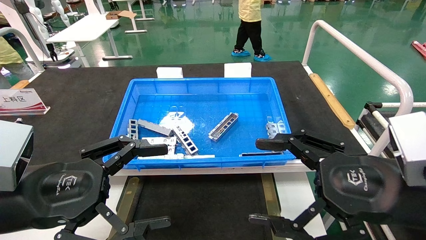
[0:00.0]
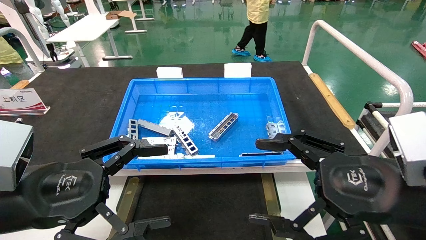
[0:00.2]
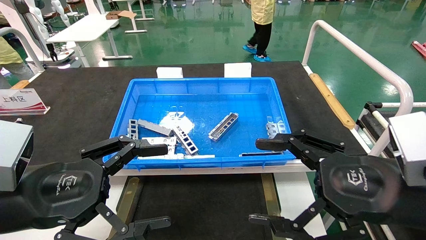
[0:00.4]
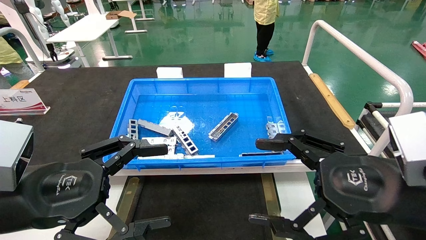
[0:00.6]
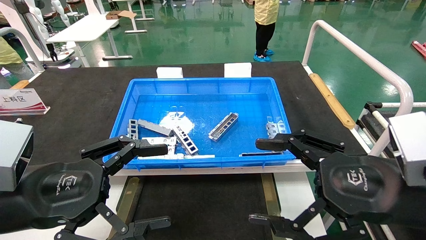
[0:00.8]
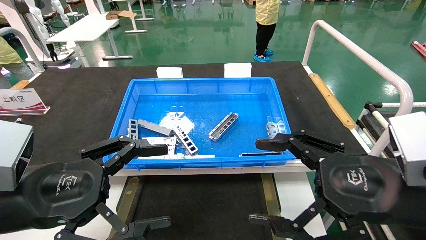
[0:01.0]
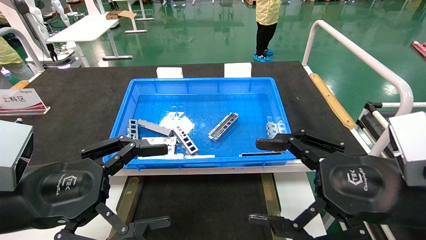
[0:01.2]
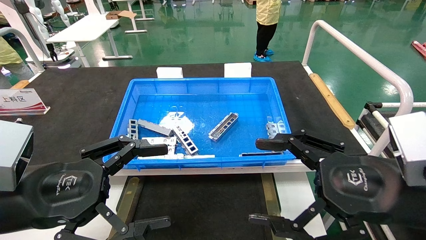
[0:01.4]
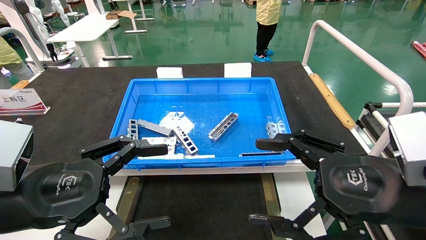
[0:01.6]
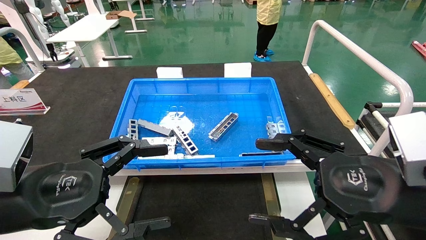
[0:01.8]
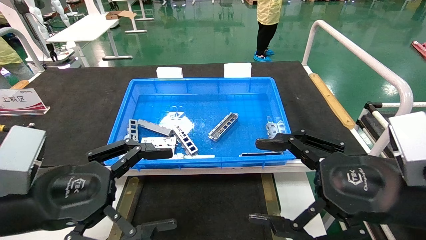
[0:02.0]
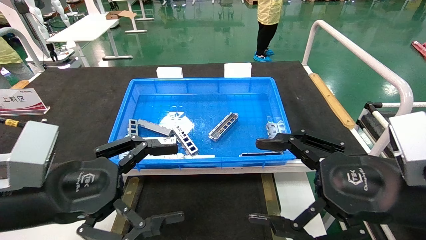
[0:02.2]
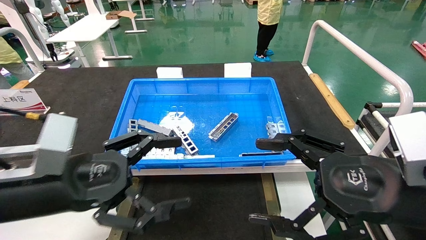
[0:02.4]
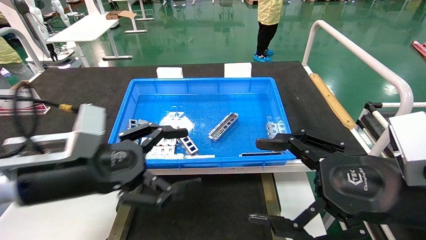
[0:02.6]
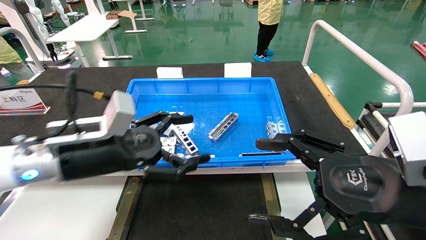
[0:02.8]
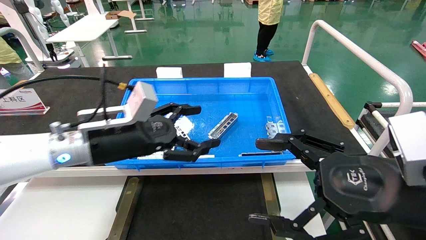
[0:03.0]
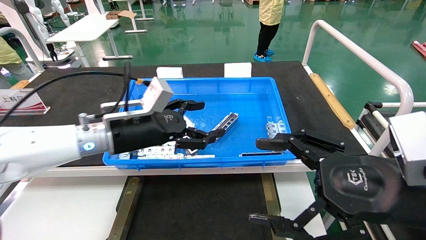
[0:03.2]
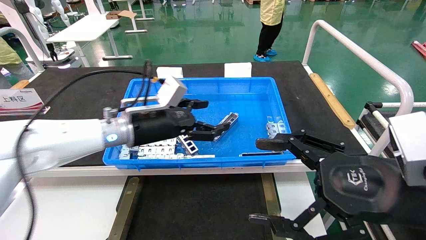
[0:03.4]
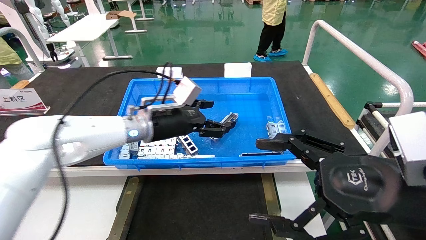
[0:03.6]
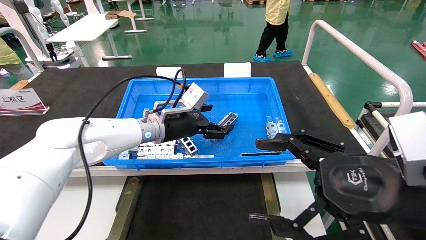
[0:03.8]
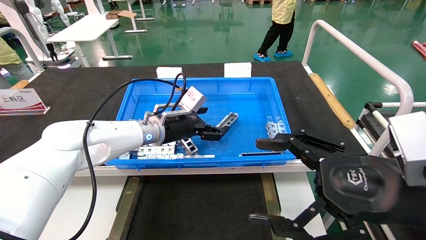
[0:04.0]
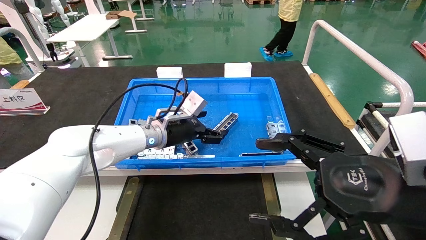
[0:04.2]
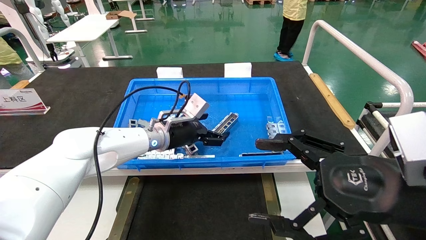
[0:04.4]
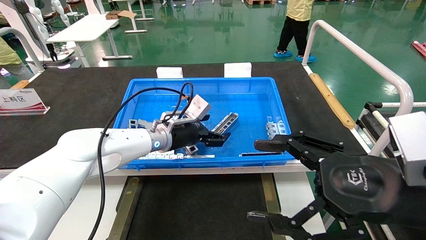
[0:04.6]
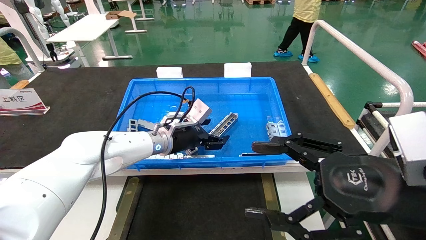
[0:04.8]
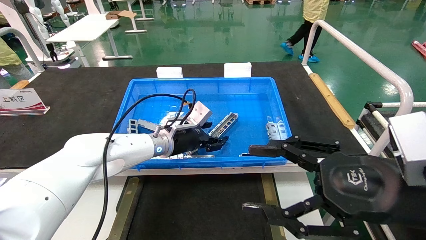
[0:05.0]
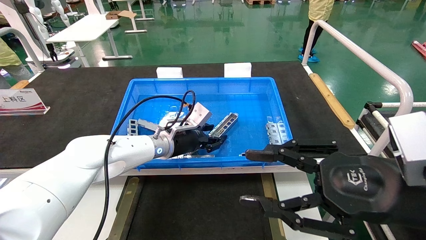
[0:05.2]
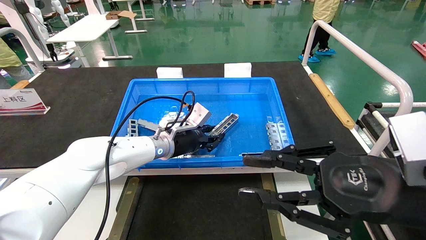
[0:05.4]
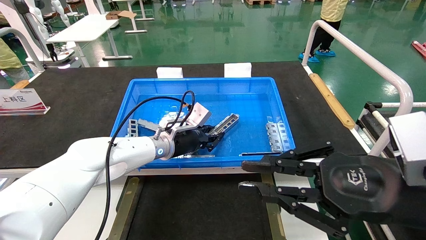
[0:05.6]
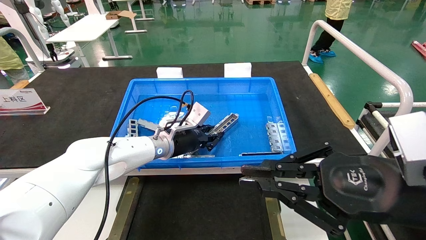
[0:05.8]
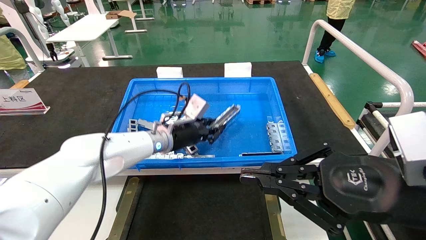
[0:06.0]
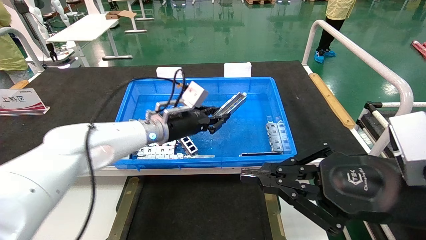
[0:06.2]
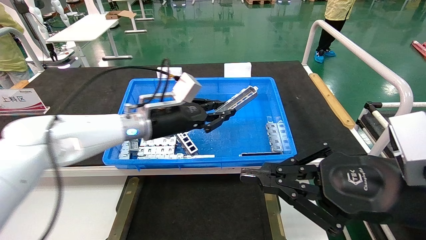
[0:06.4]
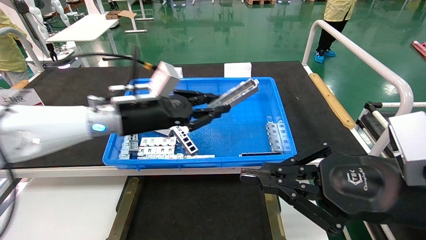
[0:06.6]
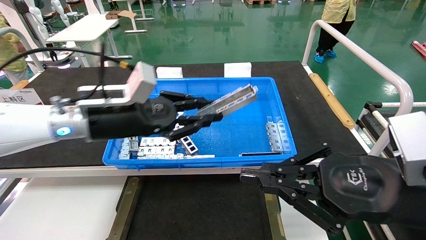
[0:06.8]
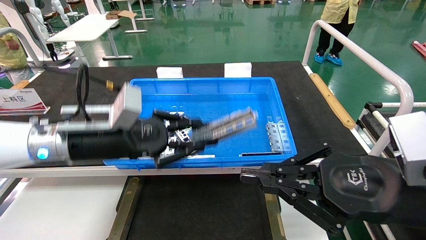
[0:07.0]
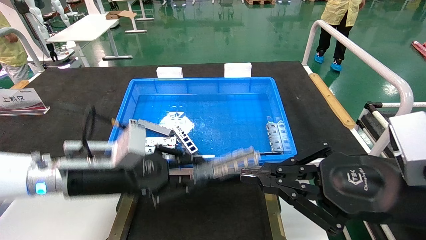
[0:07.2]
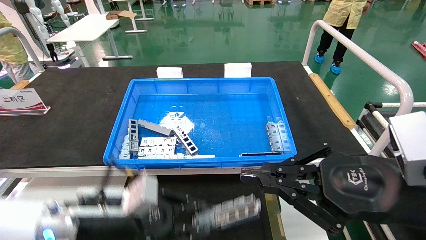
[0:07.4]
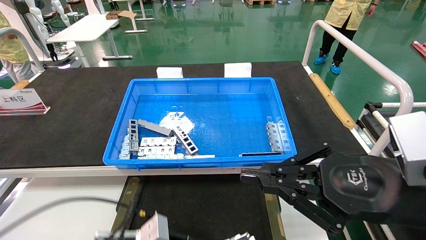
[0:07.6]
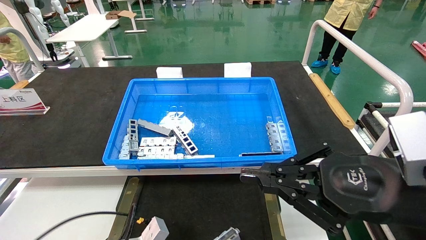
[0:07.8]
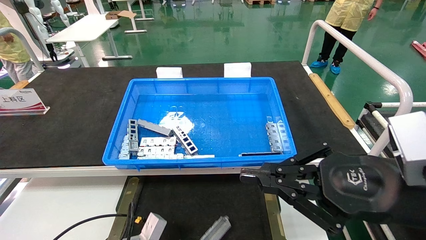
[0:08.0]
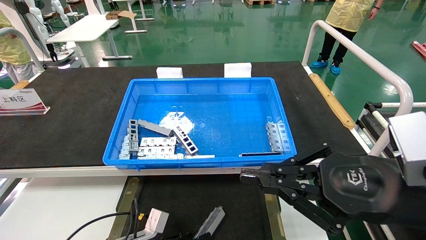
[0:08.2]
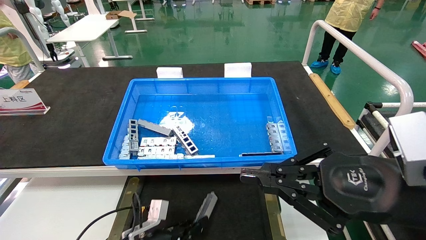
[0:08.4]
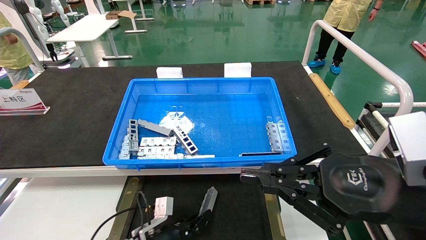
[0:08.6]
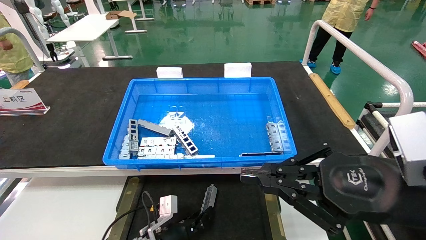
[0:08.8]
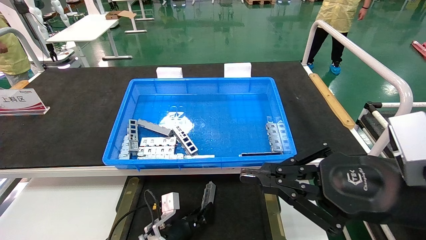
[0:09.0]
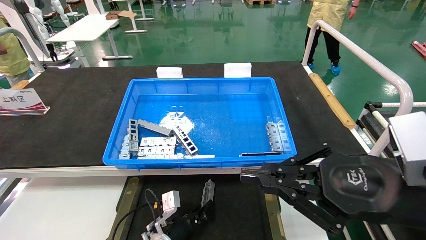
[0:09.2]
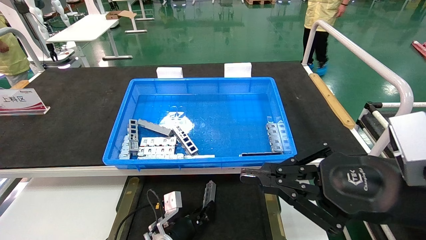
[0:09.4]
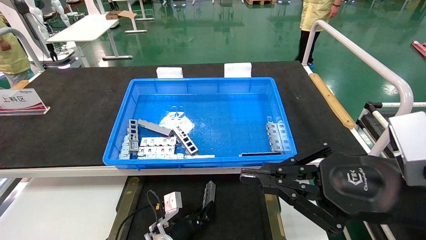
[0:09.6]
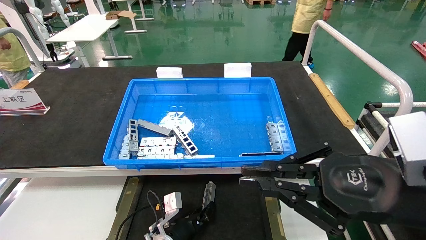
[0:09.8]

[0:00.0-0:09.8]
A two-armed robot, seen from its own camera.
Task of the whole recording: Grasp the part with one hand and place it on the black container.
Step, 0:02.2 to 0:05.4: Pick up the front USB bracket from the feeding area.
0:00.0 to 0:01.4: The two grippers keep their place.
0:01.4 to 0:02.8: The left gripper travels forward and to the right by roughly 10 cm.
0:02.8 to 0:04.2: The left gripper travels forward and to the right by roughly 20 cm.
0:04.2 to 0:05.6: The right gripper closes its fingers, while the left gripper closes its fingers.
0:05.6 to 0:07.0: The left gripper heads backward, to the left and upward, covering about 20 cm.
0:07.0 to 0:08.4: The left gripper heads downward, covering some 30 cm.
0:08.4 to 0:09.8: The left gripper moves to the right, some 5 cm.

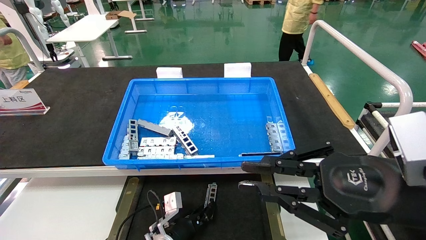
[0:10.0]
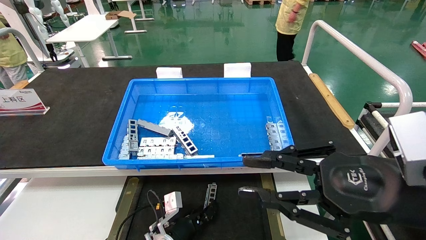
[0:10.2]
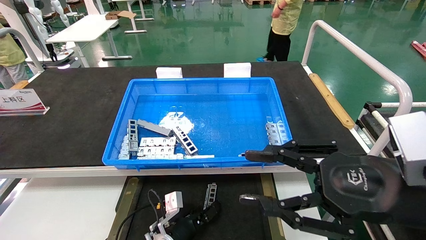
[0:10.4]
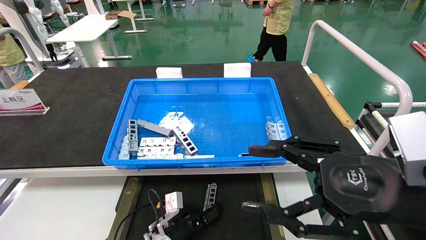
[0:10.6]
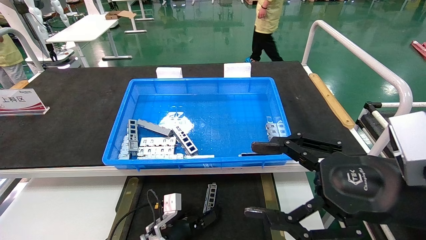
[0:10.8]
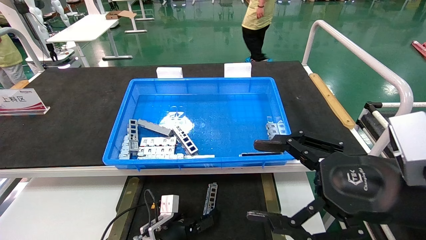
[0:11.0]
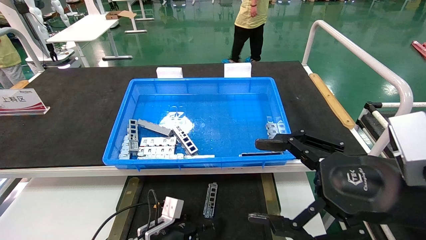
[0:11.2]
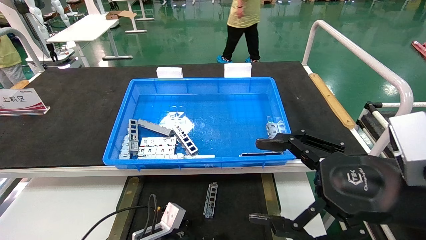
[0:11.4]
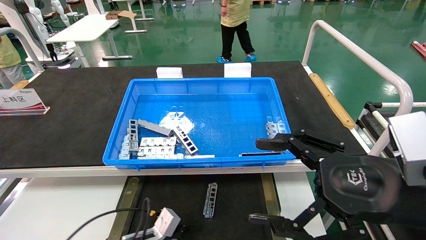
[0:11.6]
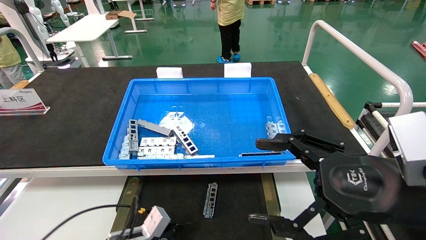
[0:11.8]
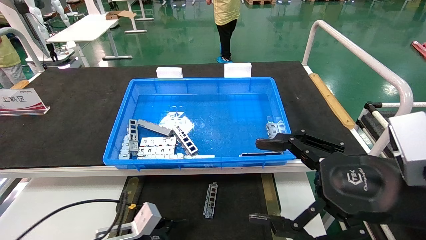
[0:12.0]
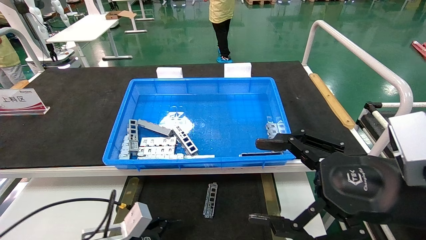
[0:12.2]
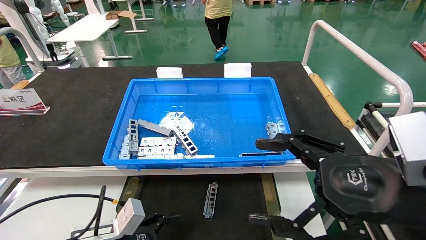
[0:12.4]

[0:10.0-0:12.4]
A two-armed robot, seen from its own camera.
Task of the whole recording: Grasp the part with one hand and place it on the black container.
0:10.0 to 0:11.2: The right gripper opens its fingers. Meanwhile the left gripper changes place by approximately 5 cm, and opens its fingers.
0:11.2 to 0:12.4: The left gripper shifts some 15 cm upward, to the left and backward.

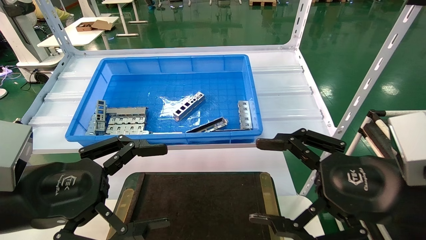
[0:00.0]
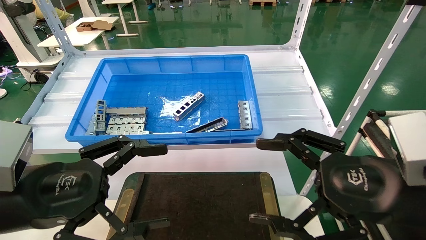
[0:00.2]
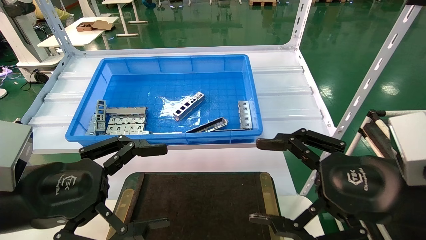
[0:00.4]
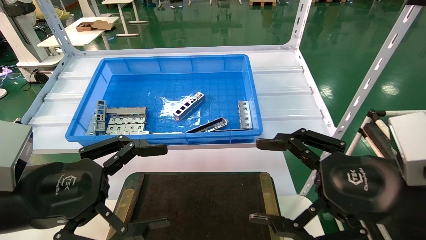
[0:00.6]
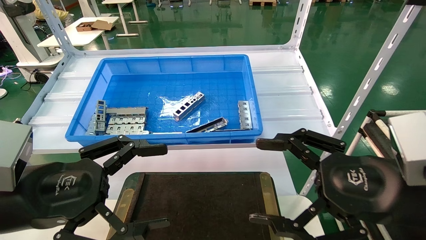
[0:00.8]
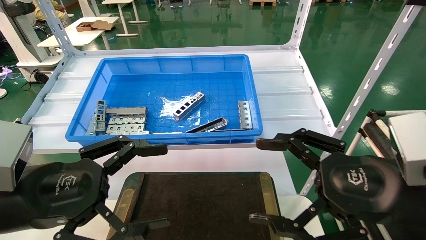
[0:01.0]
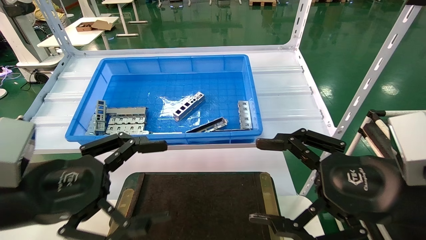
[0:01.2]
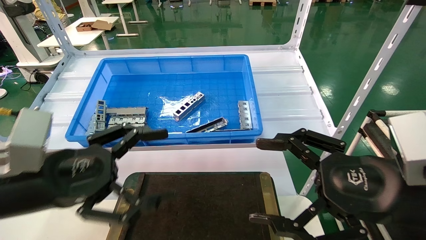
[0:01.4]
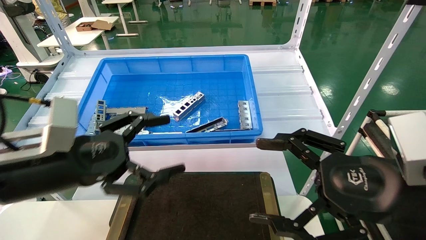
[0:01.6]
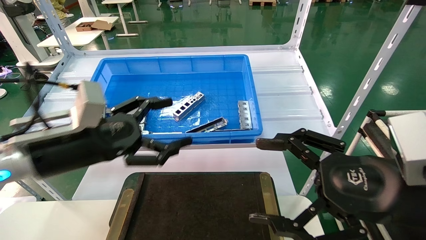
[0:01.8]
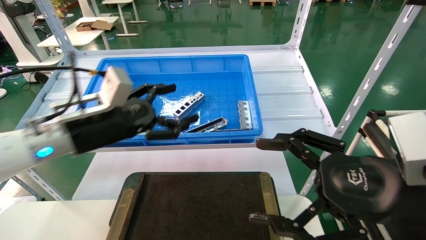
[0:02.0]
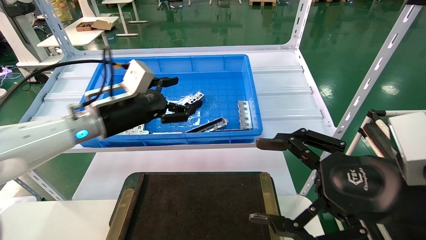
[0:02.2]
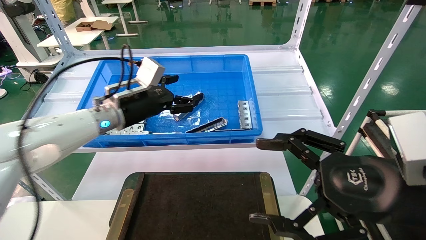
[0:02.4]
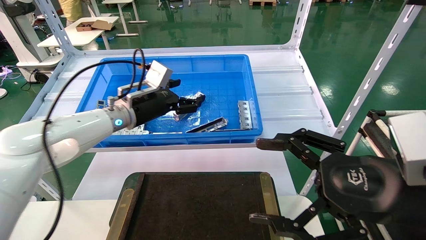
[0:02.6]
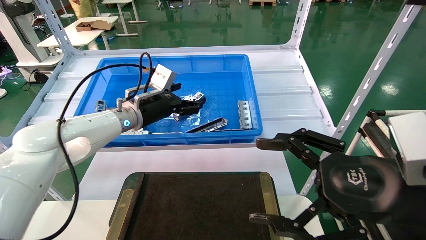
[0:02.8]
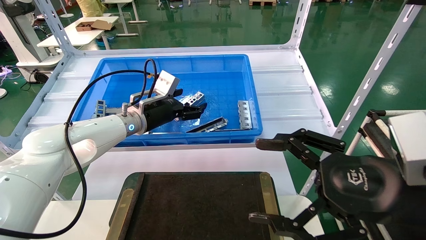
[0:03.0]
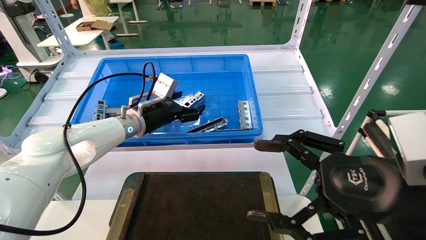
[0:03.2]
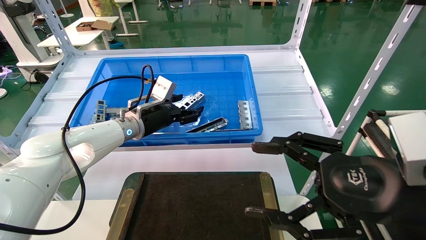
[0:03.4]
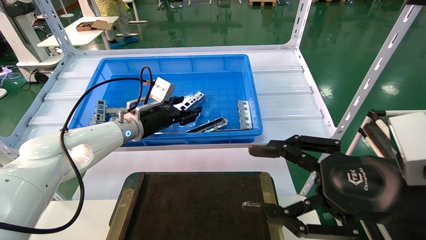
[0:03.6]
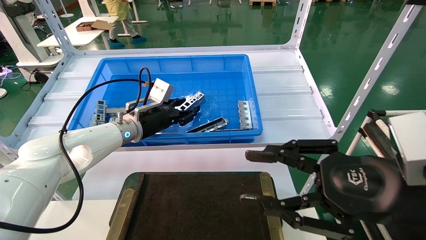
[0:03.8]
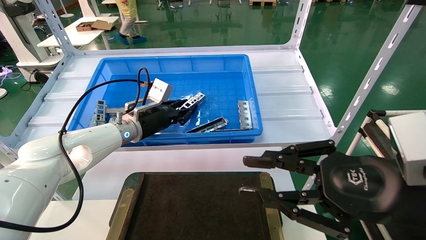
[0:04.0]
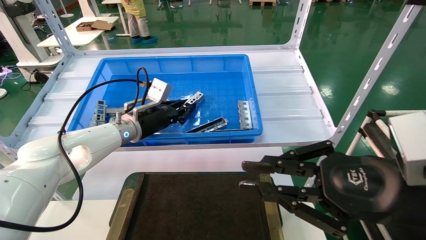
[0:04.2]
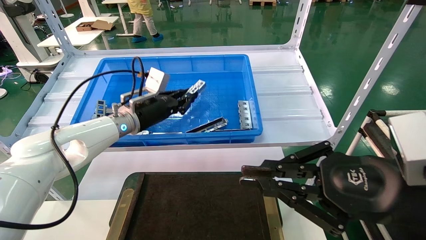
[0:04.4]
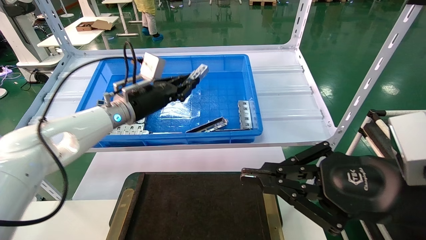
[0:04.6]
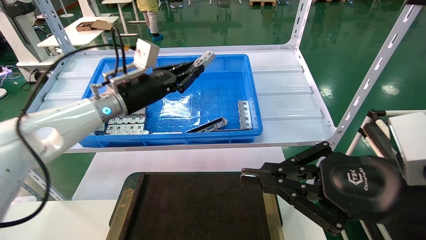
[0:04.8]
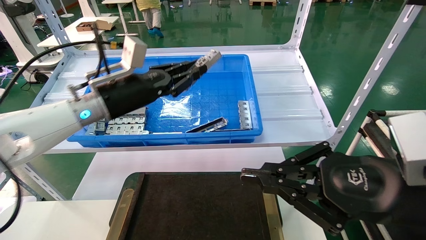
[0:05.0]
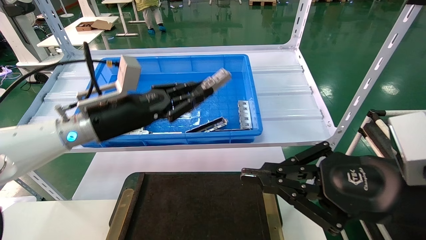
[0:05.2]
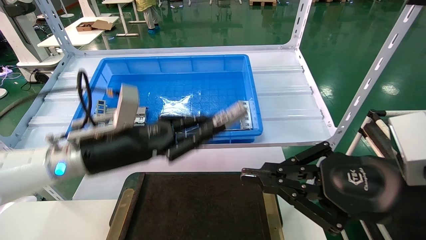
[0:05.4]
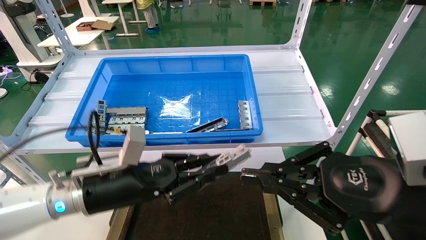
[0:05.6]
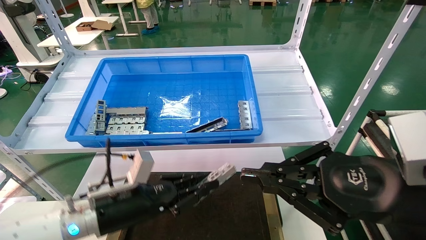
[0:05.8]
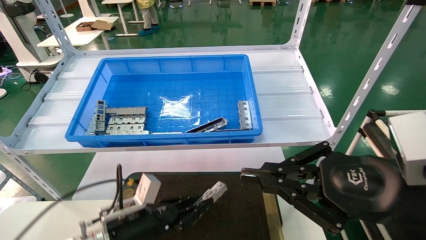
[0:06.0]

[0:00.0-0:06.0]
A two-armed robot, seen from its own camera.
Task of the whole recording: Grasp the part with one hand and place it on the black container.
Step, 0:01.6 to 0:05.2: Pick up the front USB bracket from the feeding area.
0:00.0 to 0:01.6: The left gripper travels forward by approximately 5 cm.
0:01.6 to 0:03.0: The left gripper heads forward, covering roughly 25 cm.
0:03.0 to 0:04.4: The left gripper closes up. The right gripper closes up.
0:04.4 to 0:06.0: The left gripper moves downward and backward, some 25 cm.
